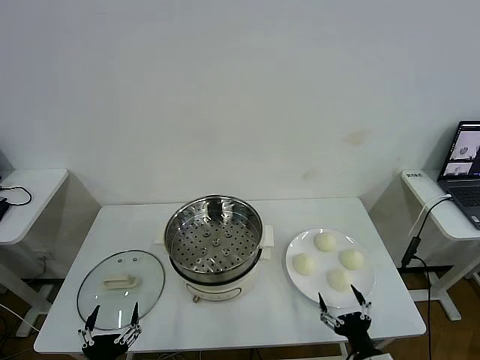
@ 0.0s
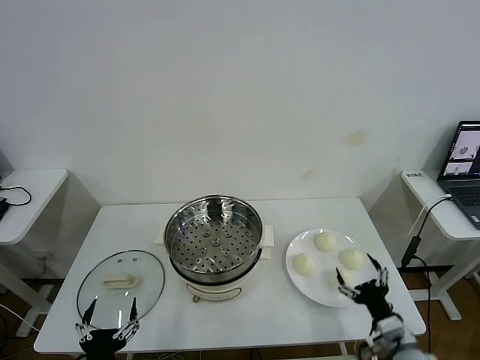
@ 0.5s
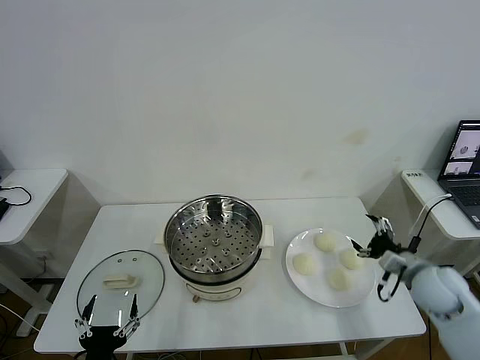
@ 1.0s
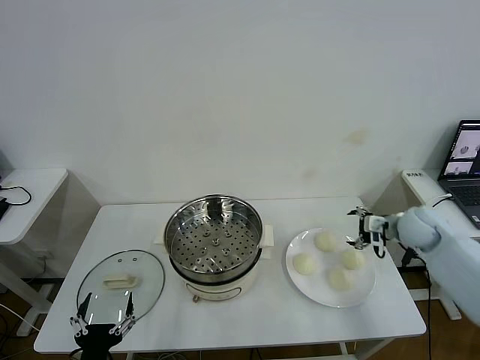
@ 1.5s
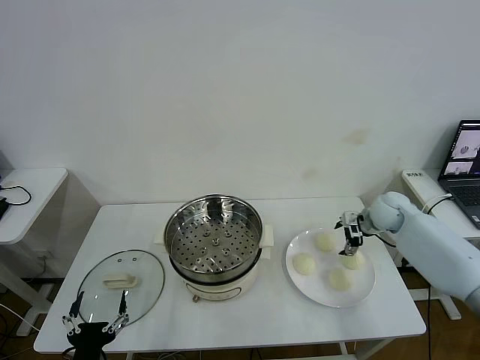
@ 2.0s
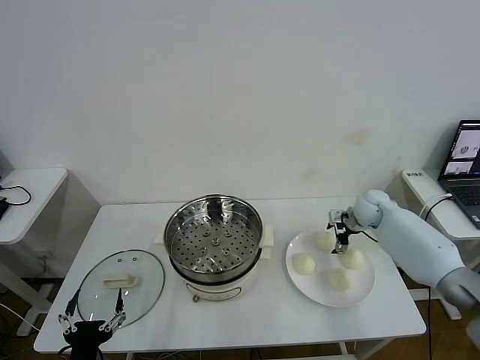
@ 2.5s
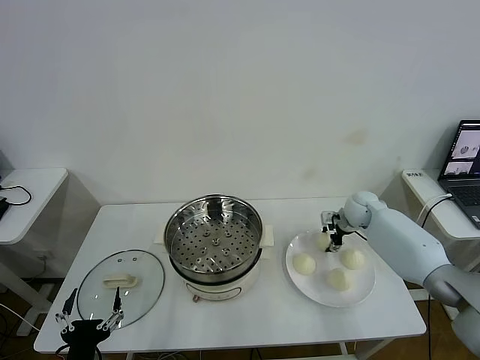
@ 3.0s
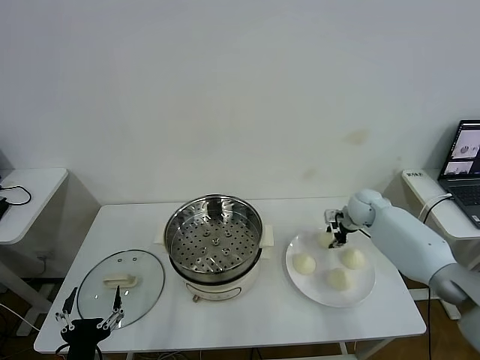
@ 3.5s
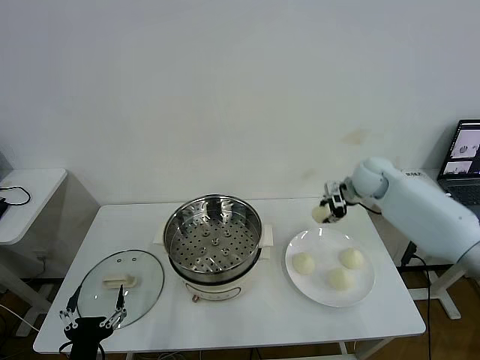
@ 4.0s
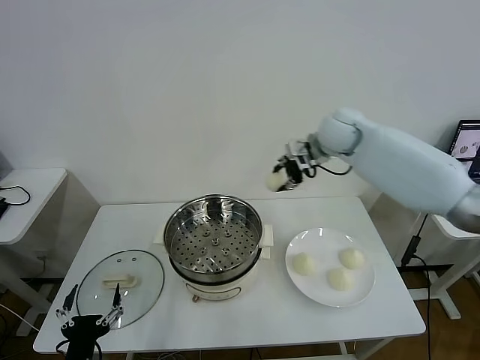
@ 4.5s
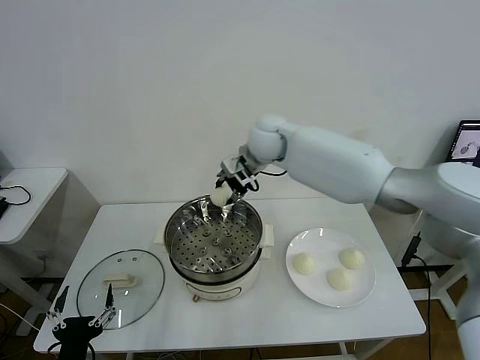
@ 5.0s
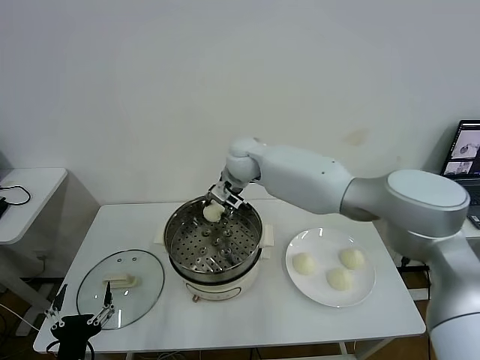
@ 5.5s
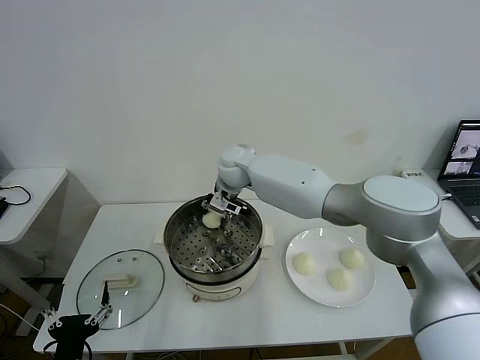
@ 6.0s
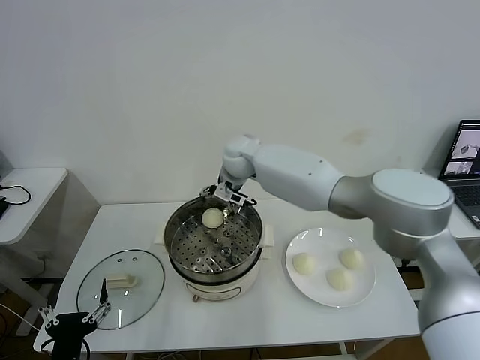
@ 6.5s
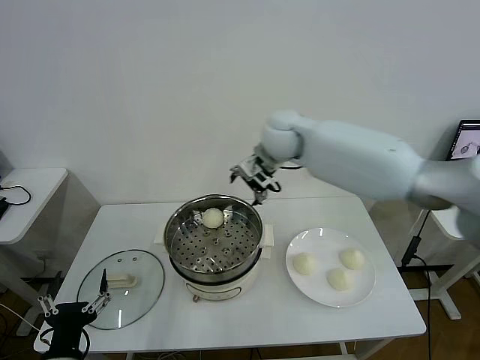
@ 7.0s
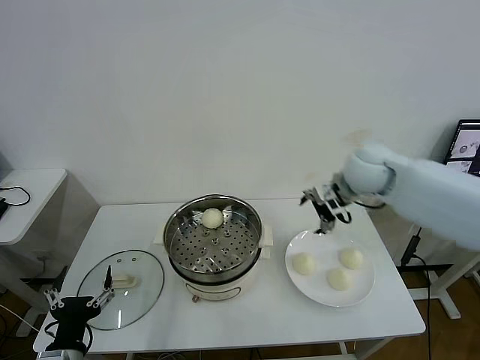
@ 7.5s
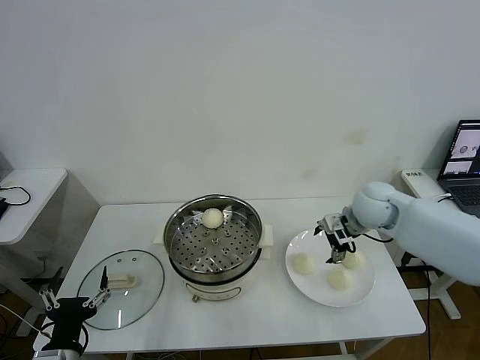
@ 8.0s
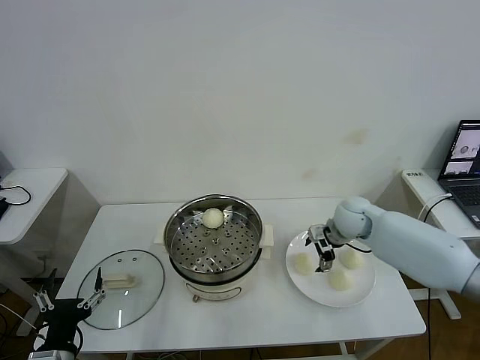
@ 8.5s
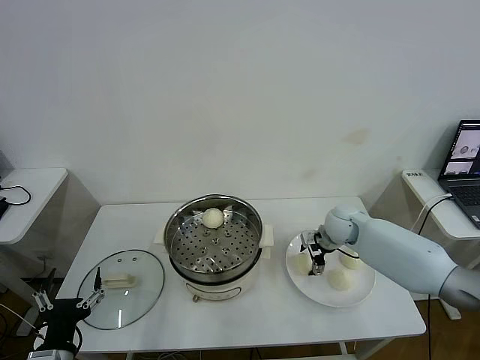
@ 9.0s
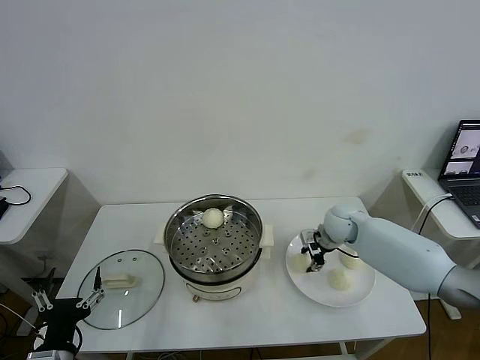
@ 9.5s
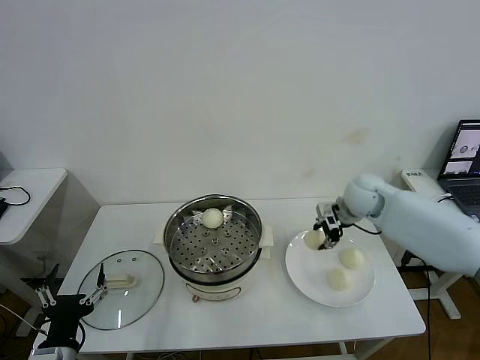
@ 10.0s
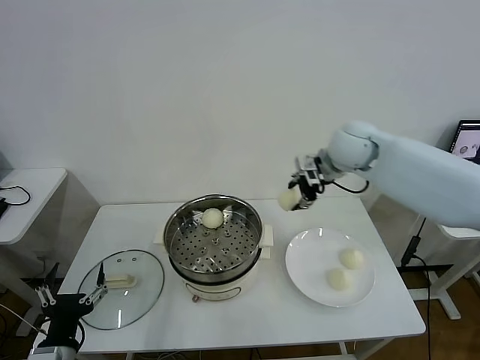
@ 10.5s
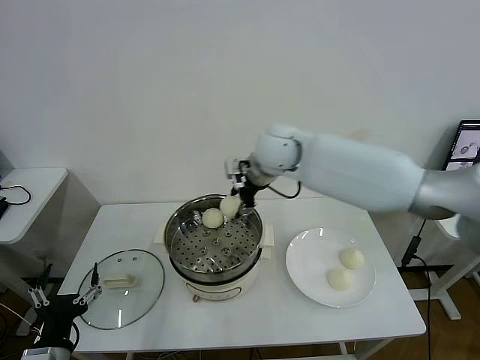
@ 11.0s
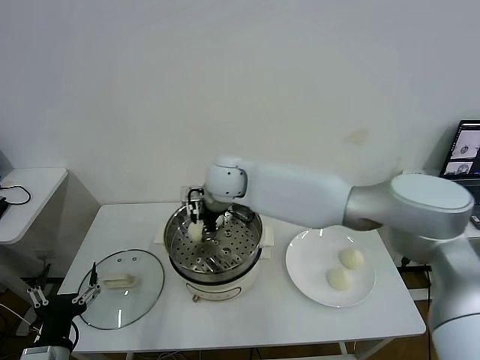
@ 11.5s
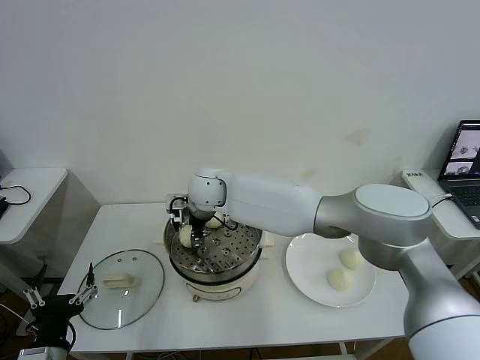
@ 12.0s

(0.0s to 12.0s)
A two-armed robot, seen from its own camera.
Task of the whole recording: take steamed baozi put them in steamer then cover it.
Step, 0.0s - 3.0s: Grasp the baozi in the plate with right gripper.
Step, 3.5s - 6.0s: Place the baozi on the steamer with right gripper.
Step, 7.0s - 9.0s: Grasp the baozi in the plate with right gripper.
2.0s - 4.0s: The right gripper shifts approximately 15 cm upward and to the left, and closes up.
4.0s - 6.0s: The right gripper moves to the left, about 30 cm, and opens.
6.0s - 8.0s: The right gripper travels to the right by some 30 cm, and opens.
8.0s - 10.0s: The right gripper goes downward and returns, some 10 cm each way, and closes its fingers.
10.0s - 12.0s: The right gripper travels to the left by roughly 35 cm.

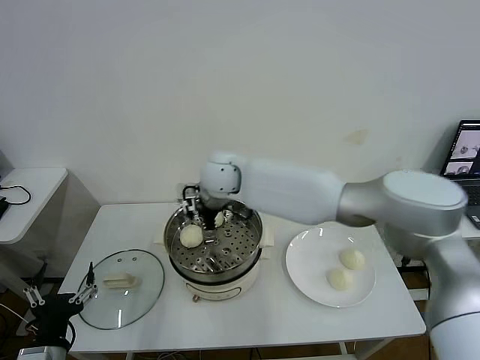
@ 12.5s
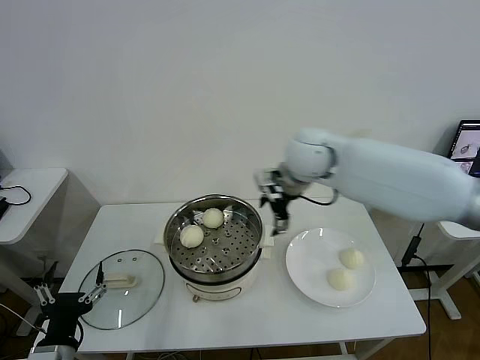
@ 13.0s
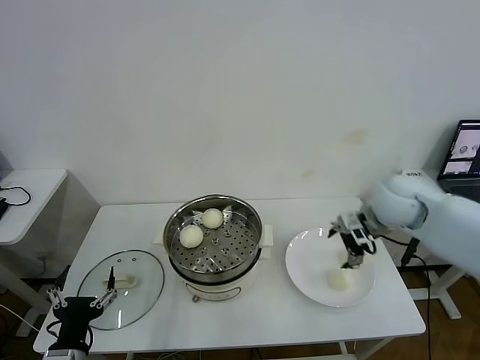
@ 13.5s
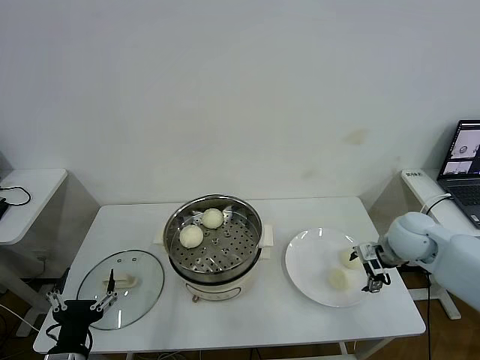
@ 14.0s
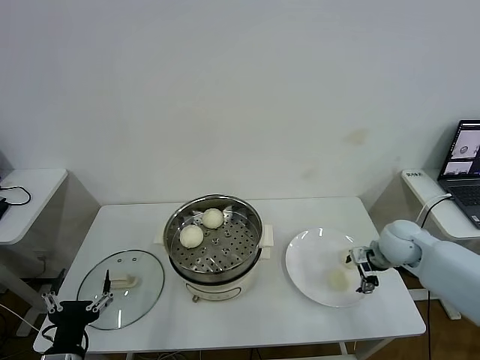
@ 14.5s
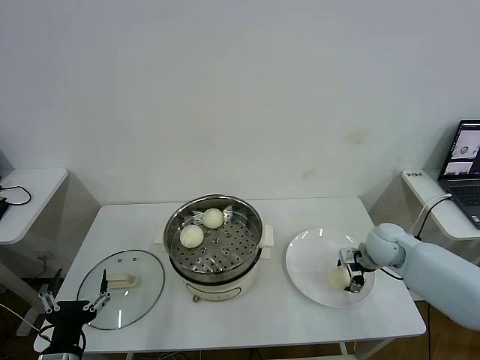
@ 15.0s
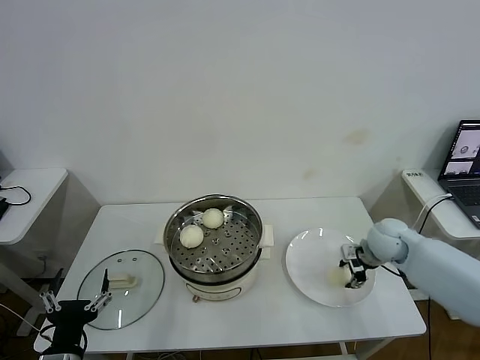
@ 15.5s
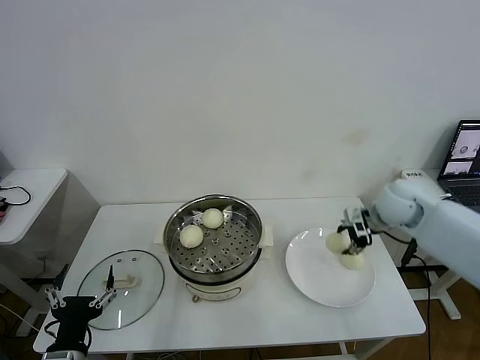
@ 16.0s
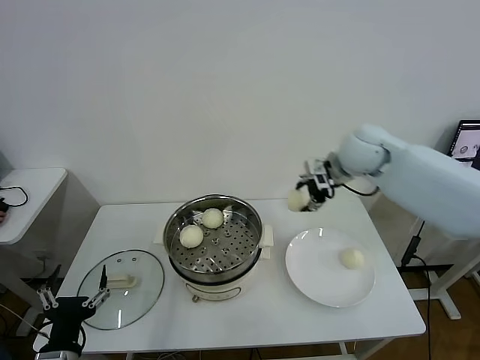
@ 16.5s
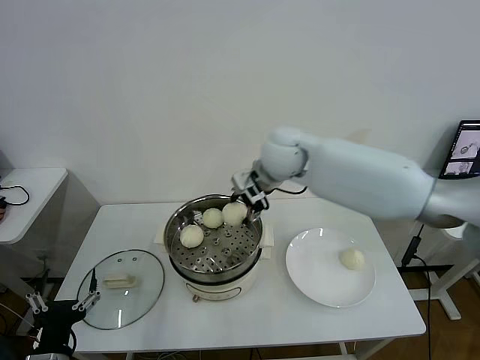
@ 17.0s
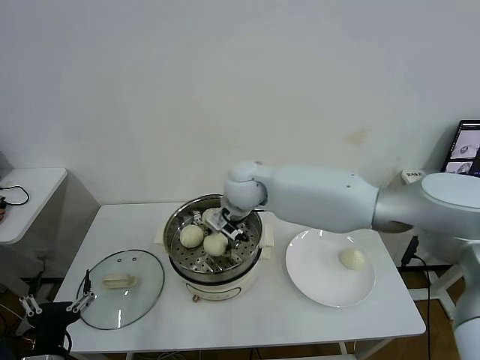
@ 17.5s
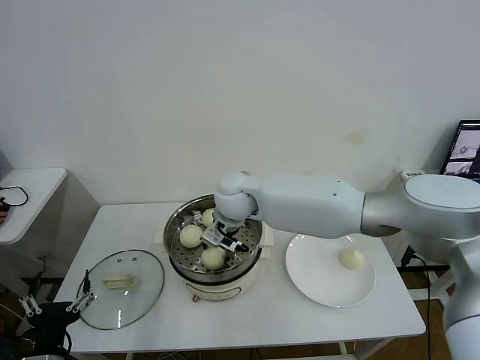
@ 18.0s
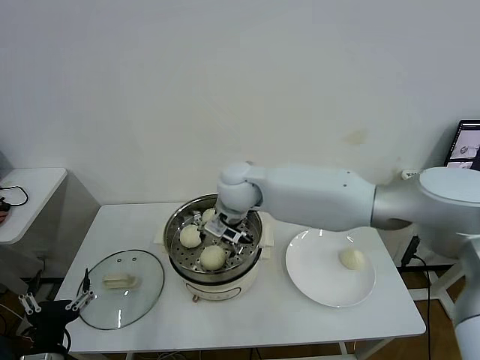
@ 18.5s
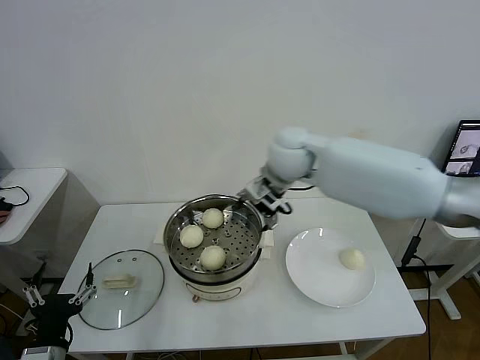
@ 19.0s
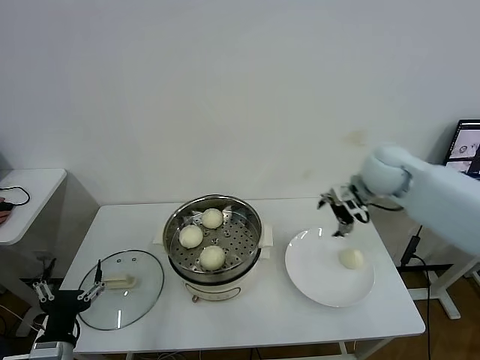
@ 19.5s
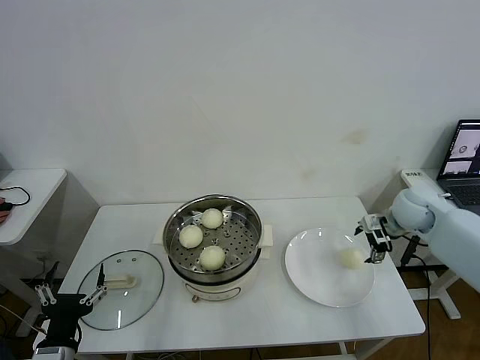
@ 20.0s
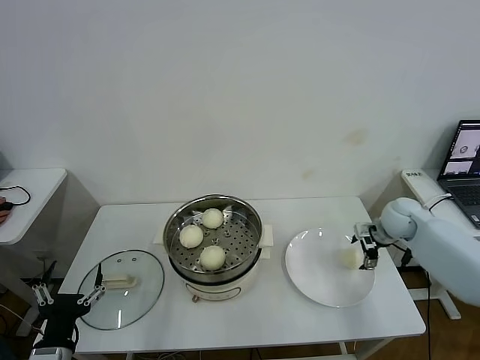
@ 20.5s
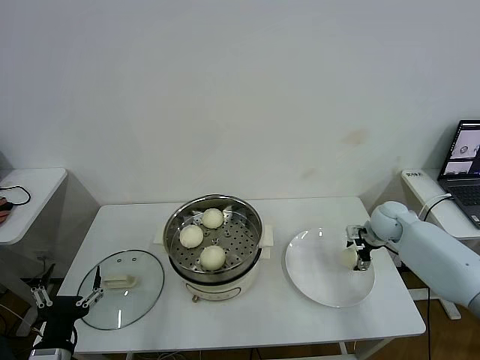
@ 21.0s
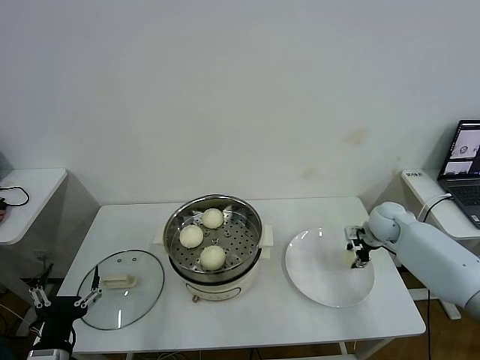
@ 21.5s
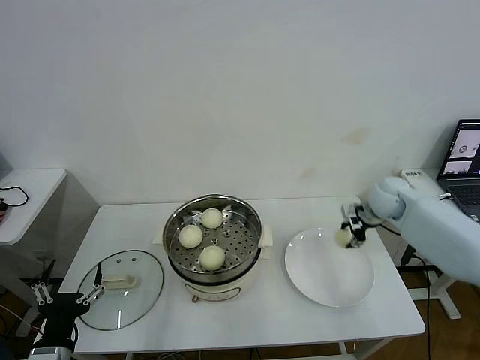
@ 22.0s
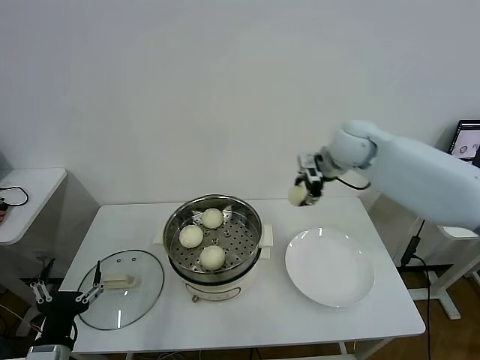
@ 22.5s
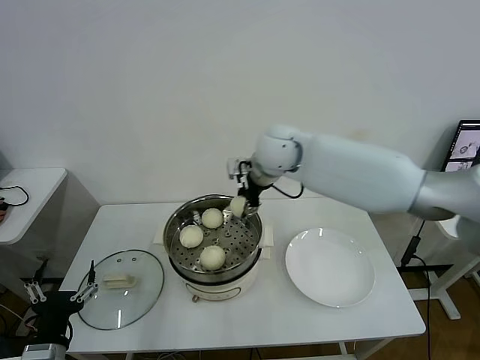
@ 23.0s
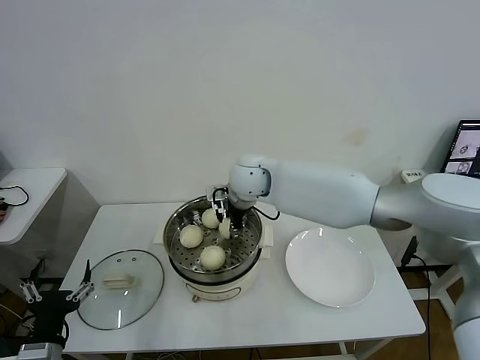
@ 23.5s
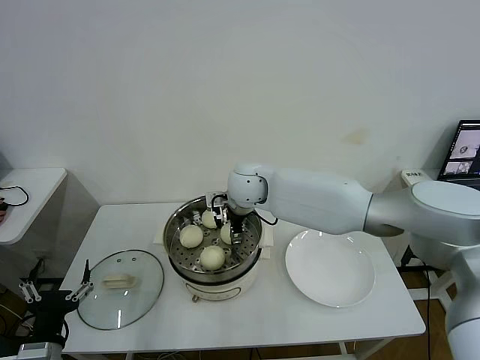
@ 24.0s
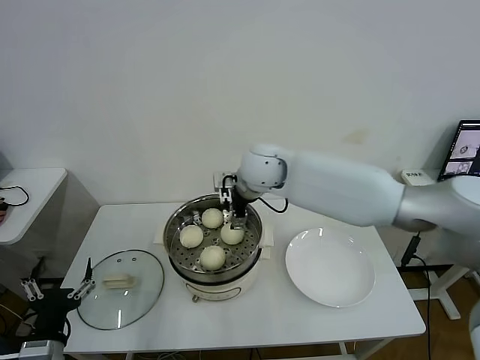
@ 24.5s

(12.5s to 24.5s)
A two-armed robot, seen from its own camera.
Task of the whole recording: take steamed baozi put them in steamer then cover it.
Step, 12.5s - 15.0s: Grasp the baozi in the plate with right gripper.
Step, 15.5s - 18.0s: Place the baozi on the steamer with right gripper.
Step, 19.0s - 21.5s: Grasp the baozi in the plate with right gripper.
Step, 22.0s - 24.0s: Place the baozi on the steamer with right gripper.
12.5s - 14.5s: The right gripper shifts approximately 40 cm to the right.
14.5s - 16.5s: The right gripper shifts roughly 25 cm upward, to the left and forward, and closes.
16.5s - 18.5s: The right gripper travels to the left by some 25 cm, and opens its fingers.
18.5s - 20.5s: The right gripper shifts approximately 40 cm to the right.
20.5s - 22.5s: The right gripper travels upward and to the left by approximately 25 cm, and closes its fingers.
22.5s - 24.5s: The right gripper goes roughly 20 cm to the left, and opens up.

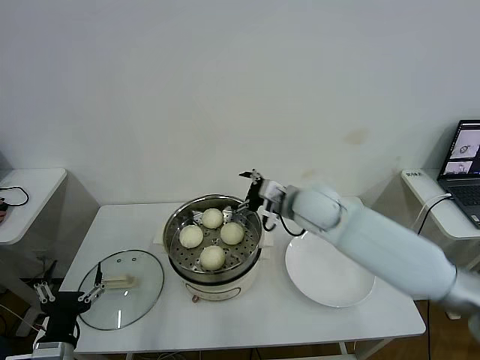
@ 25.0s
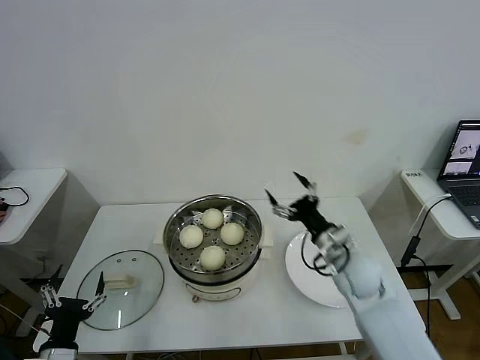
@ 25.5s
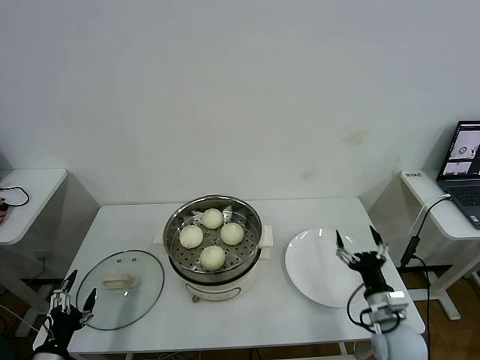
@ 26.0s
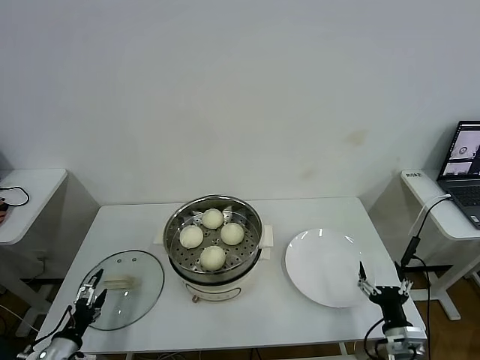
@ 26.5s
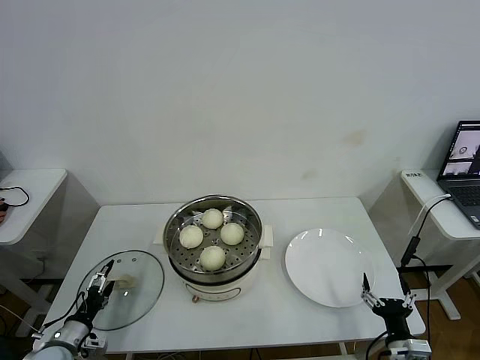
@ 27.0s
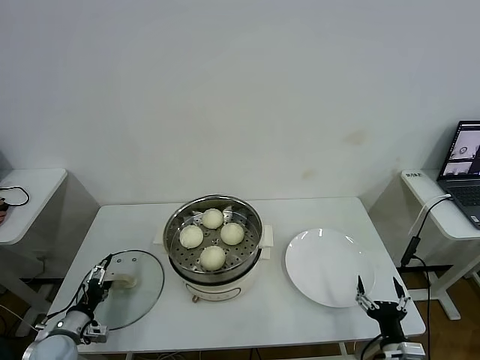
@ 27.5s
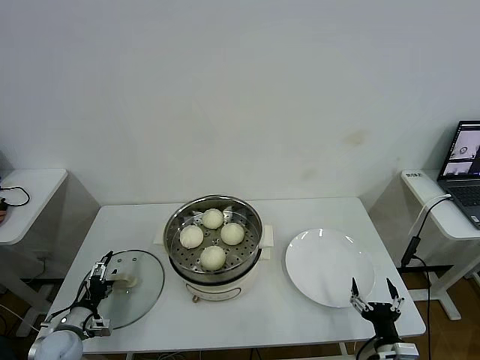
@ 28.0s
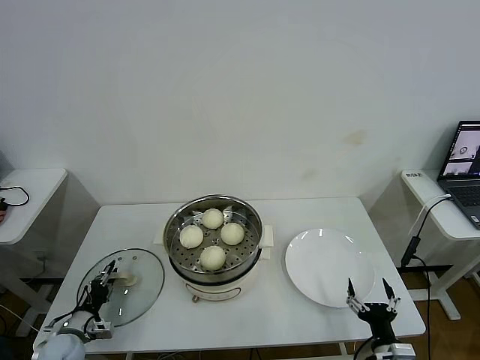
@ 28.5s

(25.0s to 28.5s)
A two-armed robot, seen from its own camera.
Task of the whole recording: take steamed baozi put them in steamer then cover it.
25.0s - 27.0s: The right gripper goes some 40 cm backward, downward and to the right. Meanwhile the left gripper moves downward, to the left and forward, some 20 cm.
27.0s - 28.5s: The left gripper ends up roughly 5 cm from where it was, and closes its fingers.
